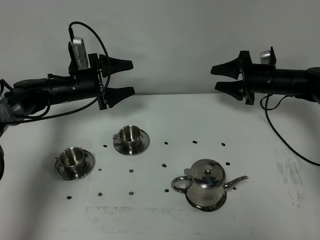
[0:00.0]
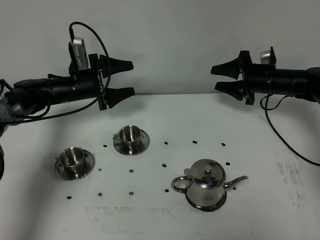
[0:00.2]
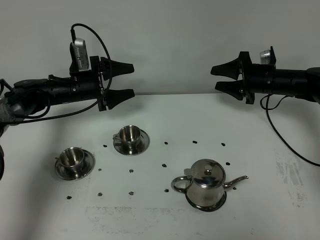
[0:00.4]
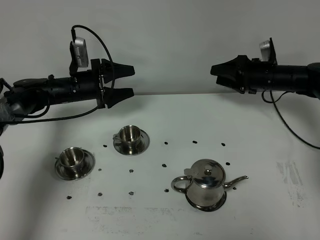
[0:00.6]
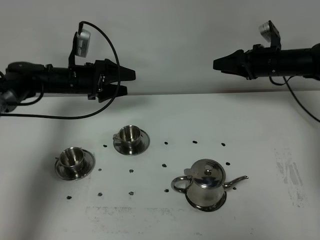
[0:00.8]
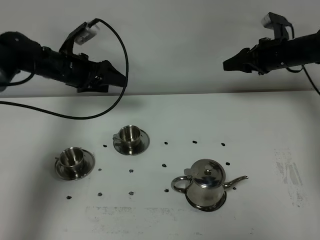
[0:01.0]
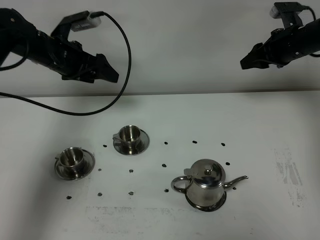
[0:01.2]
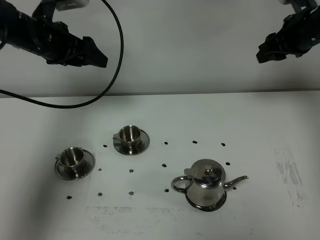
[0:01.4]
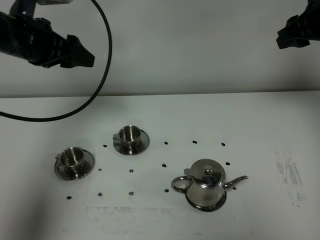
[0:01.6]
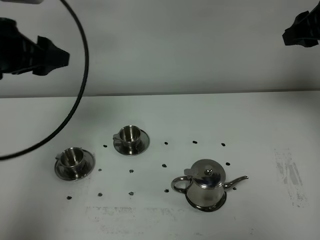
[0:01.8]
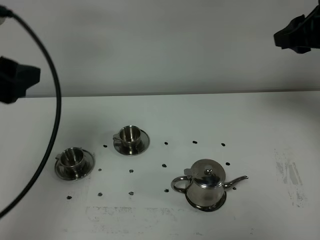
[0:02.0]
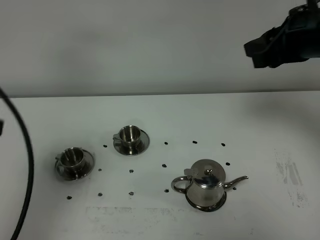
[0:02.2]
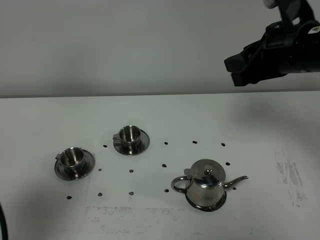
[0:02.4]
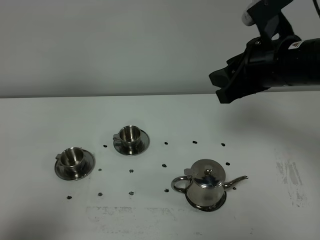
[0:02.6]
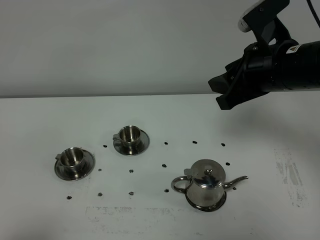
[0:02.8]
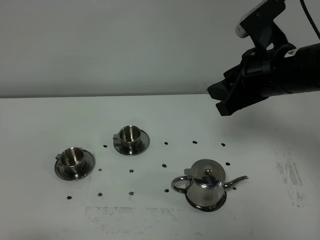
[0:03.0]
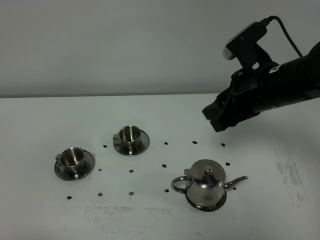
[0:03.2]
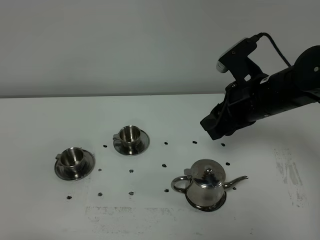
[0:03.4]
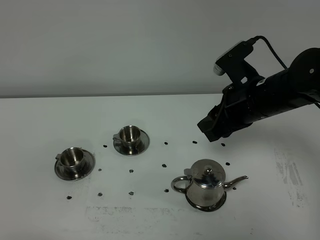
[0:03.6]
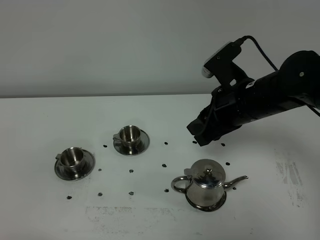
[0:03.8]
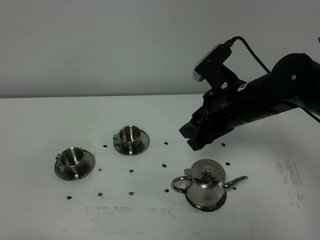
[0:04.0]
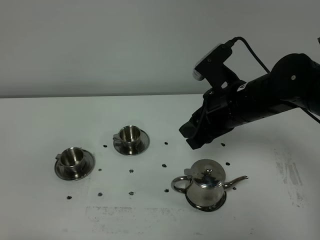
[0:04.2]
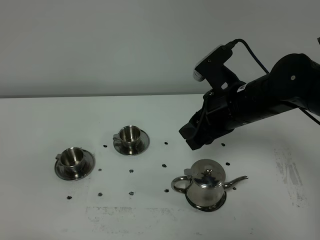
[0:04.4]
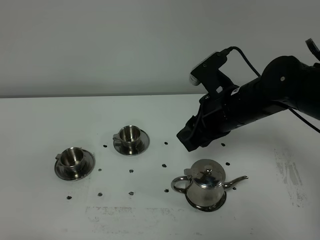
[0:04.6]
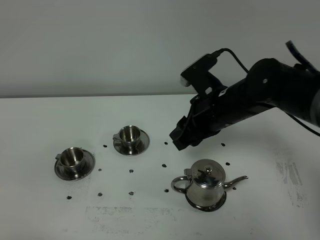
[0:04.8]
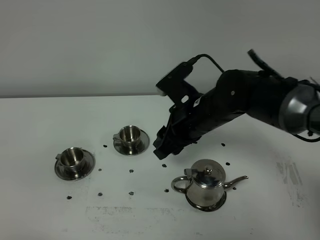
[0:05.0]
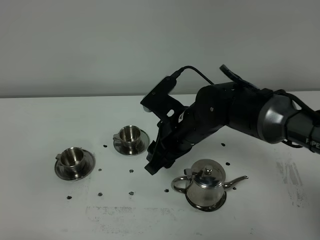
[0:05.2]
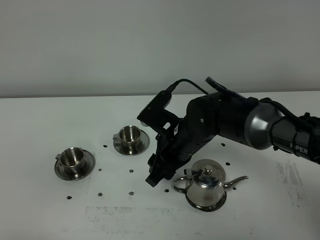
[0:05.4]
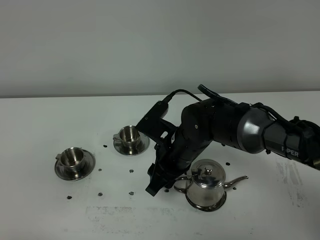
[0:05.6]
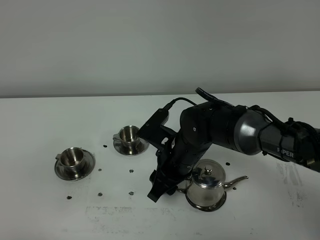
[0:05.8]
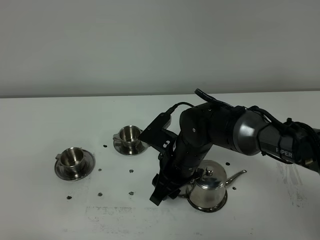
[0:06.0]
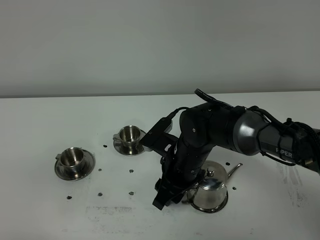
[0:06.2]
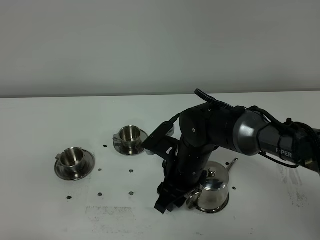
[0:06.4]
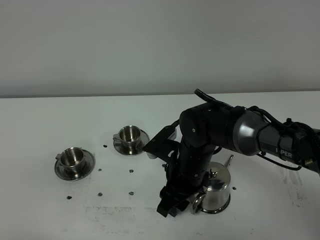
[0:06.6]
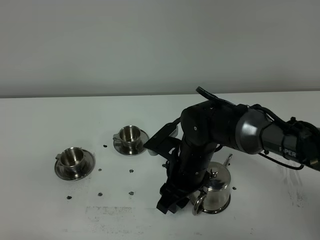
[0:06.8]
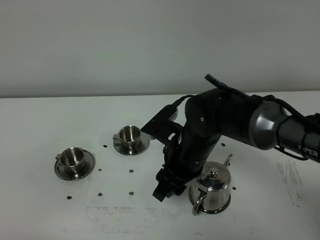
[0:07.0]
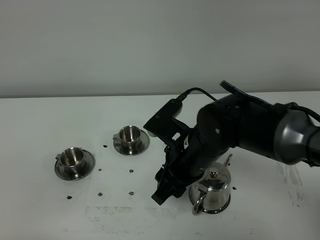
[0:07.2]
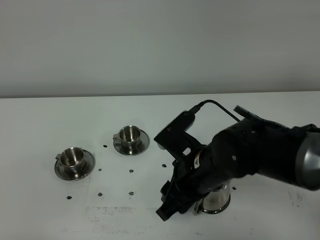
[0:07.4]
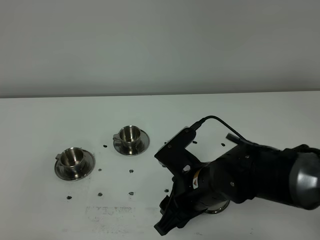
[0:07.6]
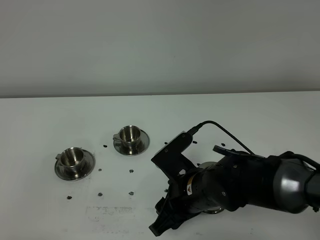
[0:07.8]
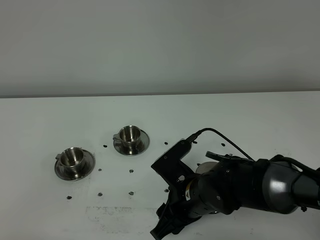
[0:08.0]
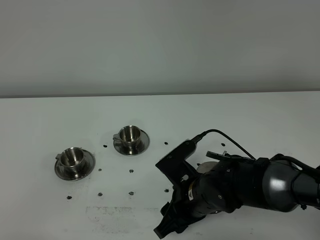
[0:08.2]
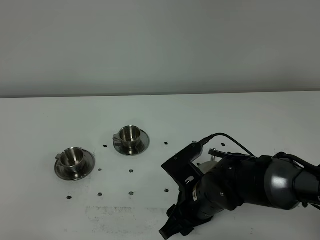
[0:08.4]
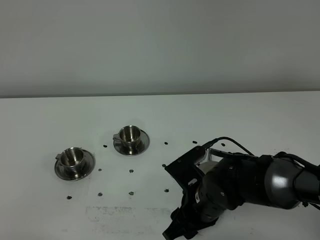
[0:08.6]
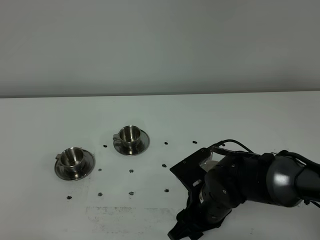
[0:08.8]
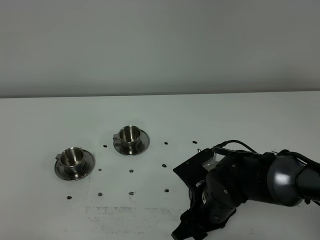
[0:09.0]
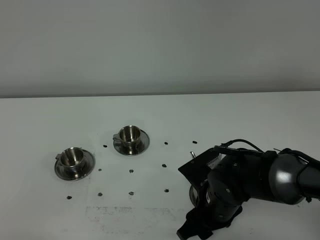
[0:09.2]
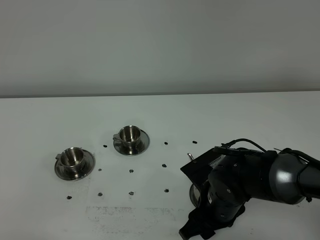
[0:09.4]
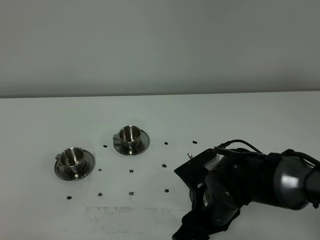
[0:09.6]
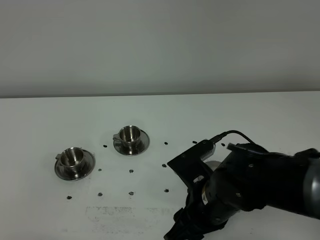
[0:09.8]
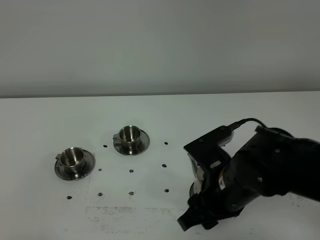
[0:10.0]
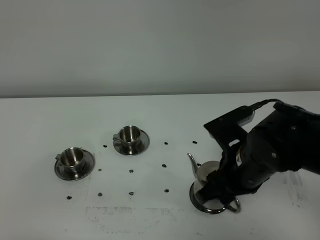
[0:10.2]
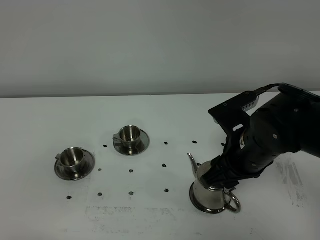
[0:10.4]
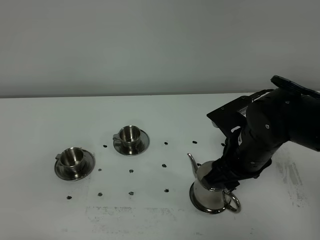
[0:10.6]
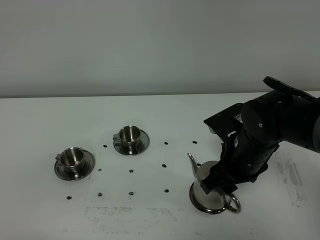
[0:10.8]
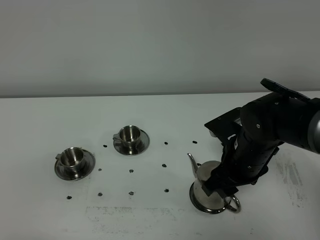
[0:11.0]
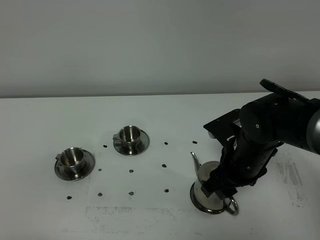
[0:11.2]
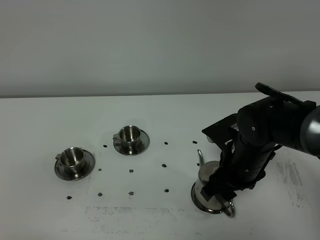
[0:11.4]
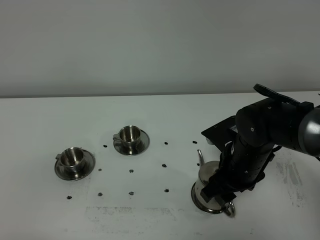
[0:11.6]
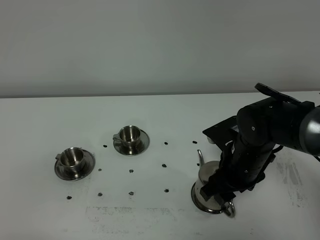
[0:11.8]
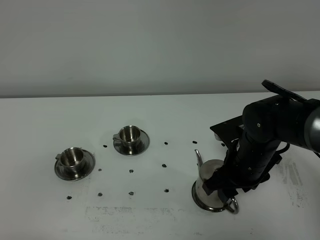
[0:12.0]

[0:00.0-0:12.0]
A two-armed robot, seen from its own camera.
Task of the whole recording: grasp the stainless steel teapot and pour the tea into the two stainless steel teacups one by one, put the stainless steel teapot back in its original place.
0:00.0 to 0:01.6: Both grippers travel together upward and backward, some 25 cm.
0:01.6 to 0:03.0: The right gripper heads backward and to the left, covering some 15 cm. The left gripper is displaced backward by about 40 cm.
0:03.0 to 0:04.4: The right gripper is displaced downward by about 5 cm.
0:04.4 to 0:06.0: The right gripper is displaced downward and to the left by roughly 15 cm.
0:06.0 to 0:07.6: The right gripper moves backward, about 10 cm.
0:07.6 to 0:09.0: The right gripper changes place by about 5 cm.
0:09.0 to 0:10.4: The right gripper is displaced upward by roughly 10 cm.
0:10.4 to 0:12.0: The right gripper is displaced downward by some 5 cm.

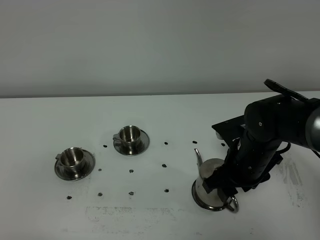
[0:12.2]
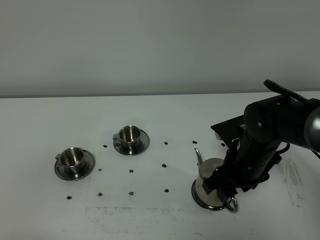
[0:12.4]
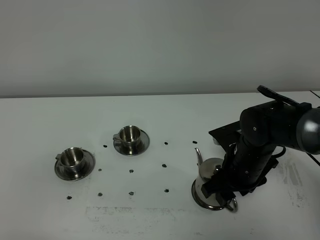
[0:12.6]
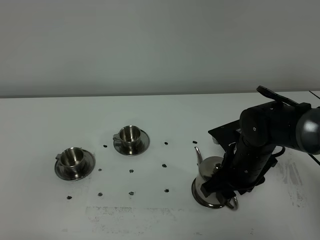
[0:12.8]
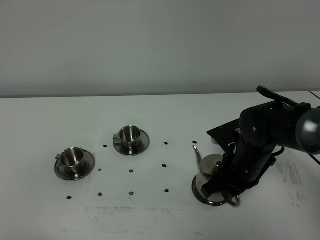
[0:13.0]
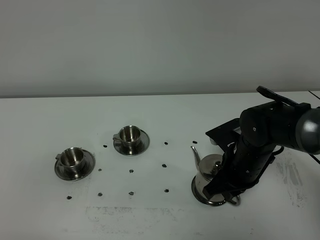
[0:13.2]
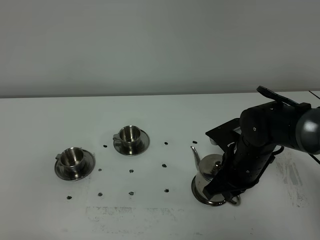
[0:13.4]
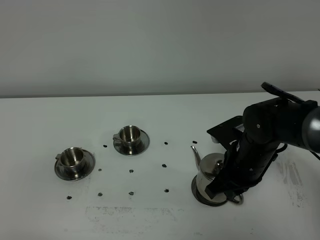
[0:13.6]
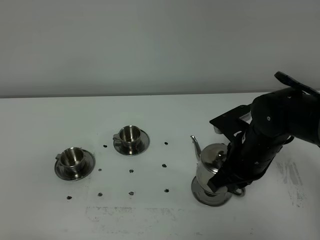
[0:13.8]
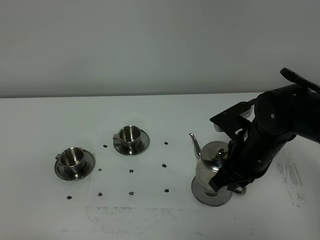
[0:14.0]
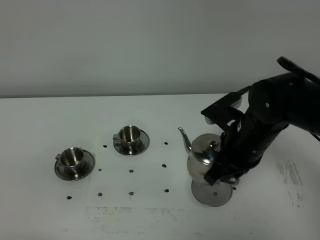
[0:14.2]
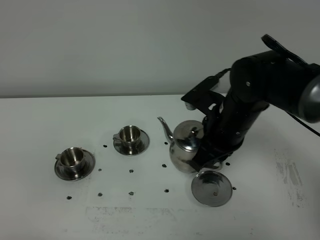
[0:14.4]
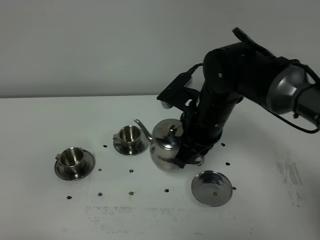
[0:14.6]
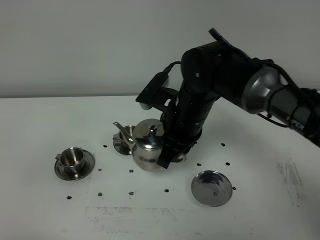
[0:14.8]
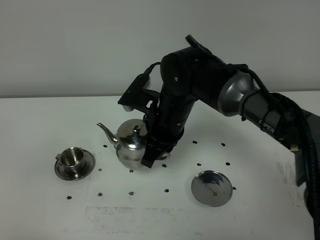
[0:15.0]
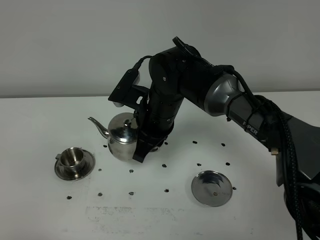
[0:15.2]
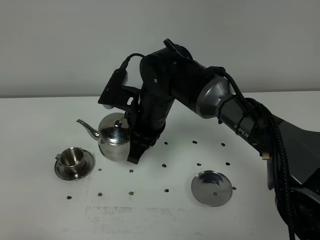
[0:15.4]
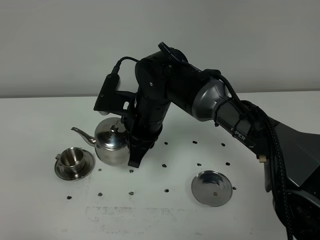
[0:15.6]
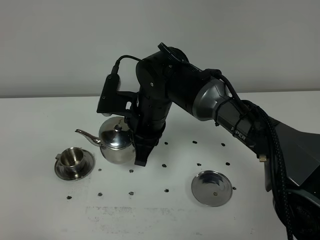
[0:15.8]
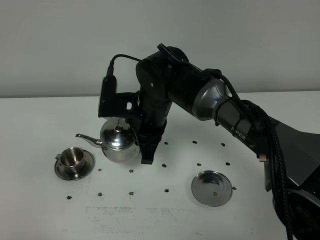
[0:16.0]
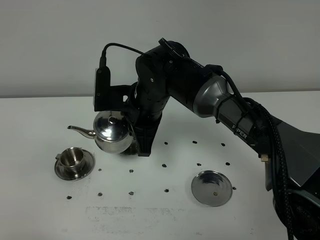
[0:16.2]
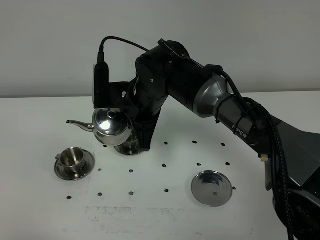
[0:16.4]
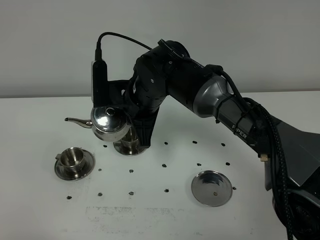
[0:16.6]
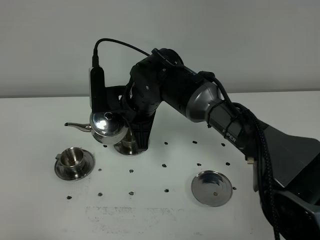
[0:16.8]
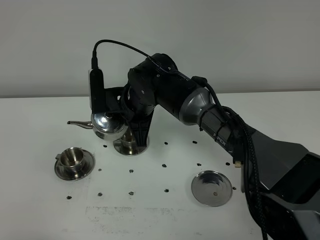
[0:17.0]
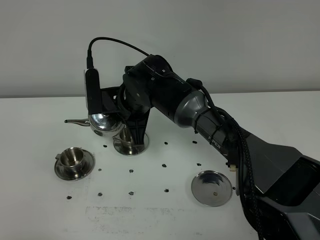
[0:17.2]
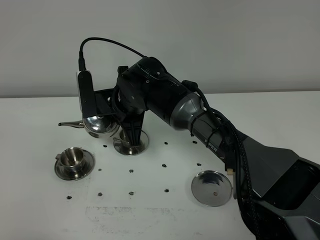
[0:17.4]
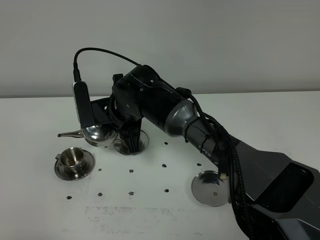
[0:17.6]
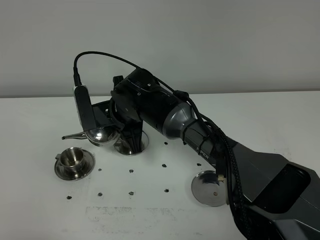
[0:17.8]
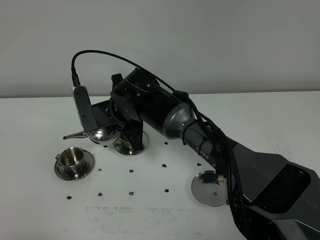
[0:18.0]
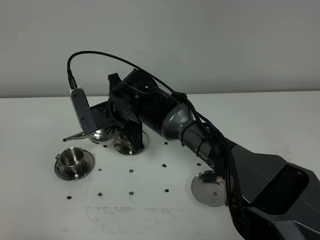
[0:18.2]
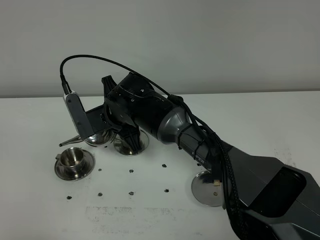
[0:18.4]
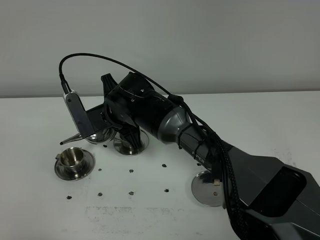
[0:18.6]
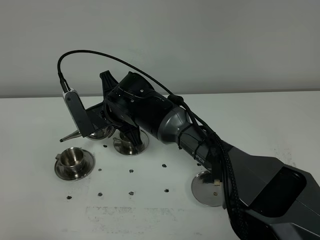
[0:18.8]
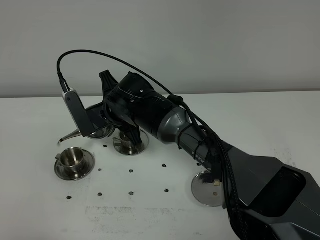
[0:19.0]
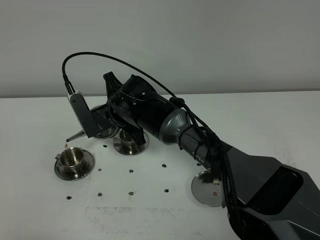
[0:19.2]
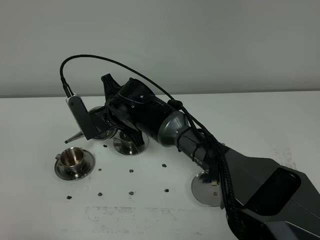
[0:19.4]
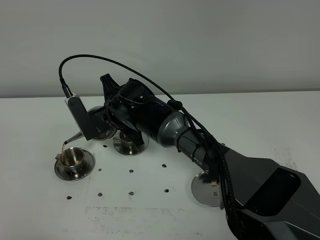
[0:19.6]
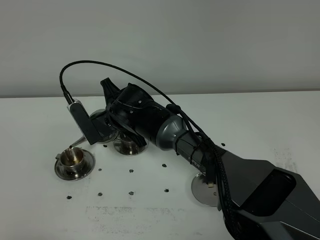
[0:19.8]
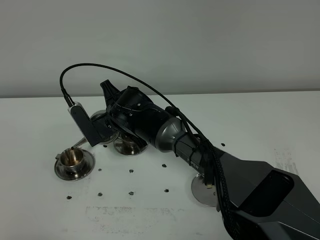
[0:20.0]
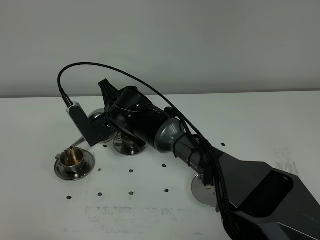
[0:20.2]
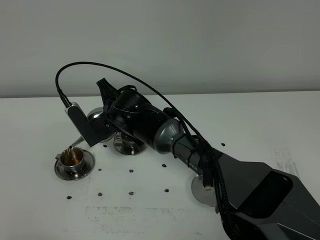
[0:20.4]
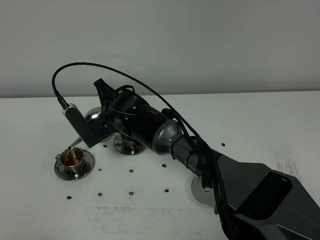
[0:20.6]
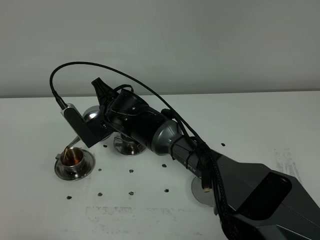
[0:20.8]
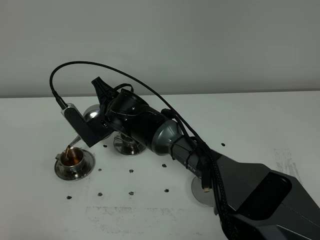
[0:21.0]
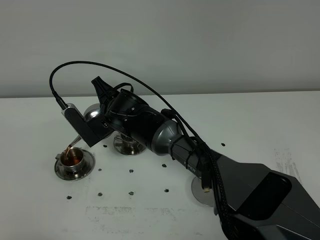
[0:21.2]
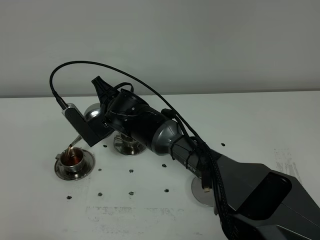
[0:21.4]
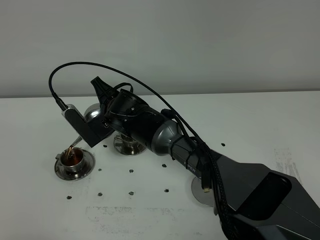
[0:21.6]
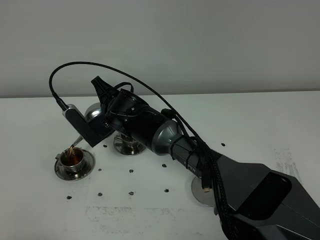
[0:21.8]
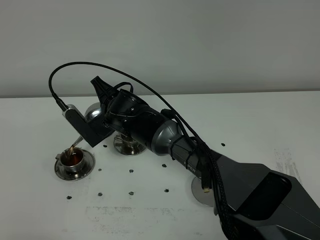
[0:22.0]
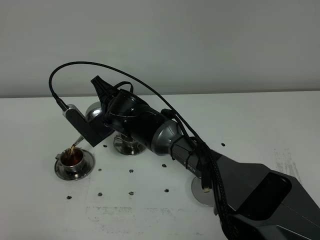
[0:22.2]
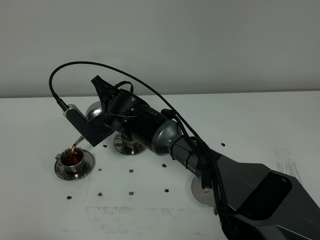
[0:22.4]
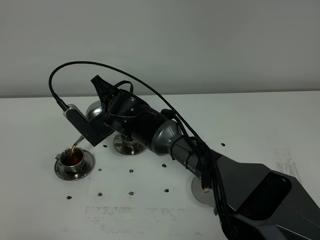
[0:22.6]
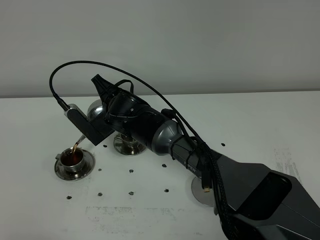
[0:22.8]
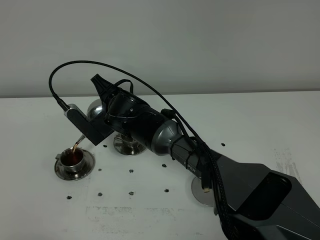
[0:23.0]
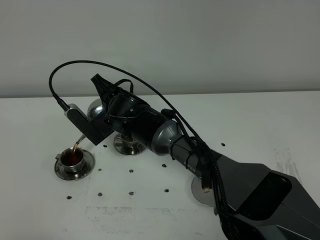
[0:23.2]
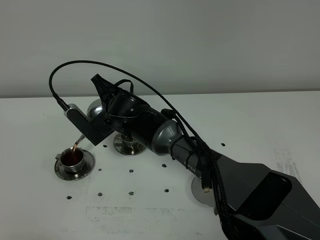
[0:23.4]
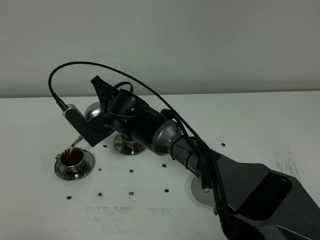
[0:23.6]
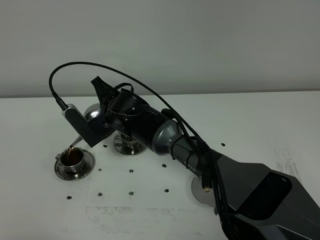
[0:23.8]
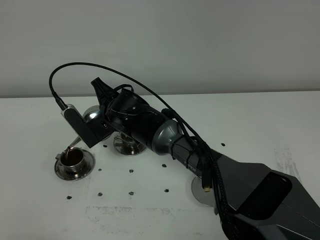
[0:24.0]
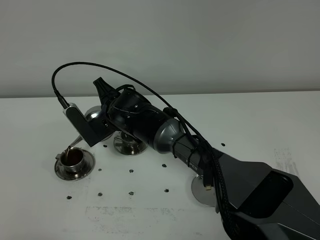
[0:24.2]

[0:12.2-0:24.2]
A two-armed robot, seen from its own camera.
Task of the whole recording: grasp the stainless steel teapot and pour the tea into the two stainless steel teacups one by one, put the stainless steel teapot back in its original place.
0:12.2 to 0:13.8: The right gripper closes.
0:13.8 to 0:15.2: The right gripper goes approximately 15 cm to the left.
0:16.6 to 0:18.2: The right gripper changes place by approximately 5 cm.
0:18.2 to 0:19.8: The grippers move only a little.
0:19.8 to 0:24.2: The grippers stay close to where they were, moving slightly.
